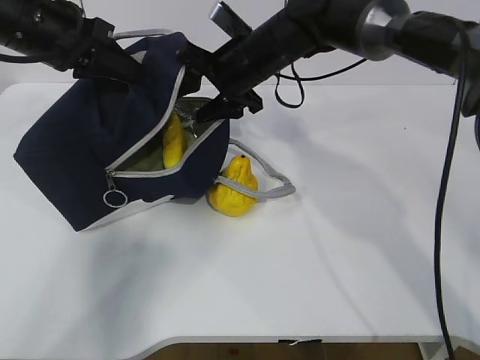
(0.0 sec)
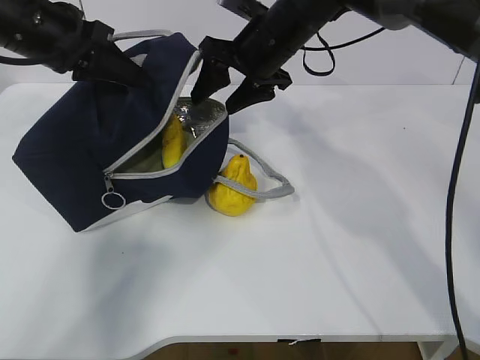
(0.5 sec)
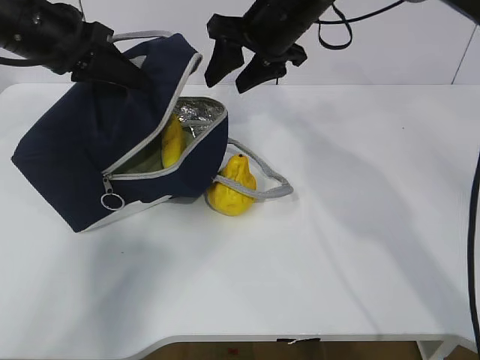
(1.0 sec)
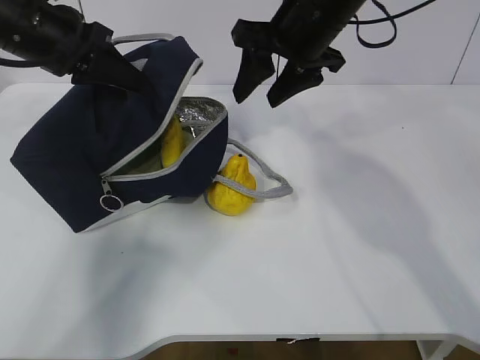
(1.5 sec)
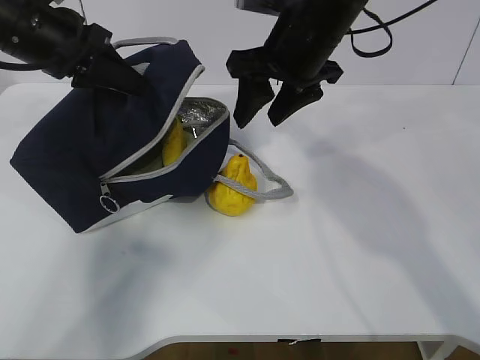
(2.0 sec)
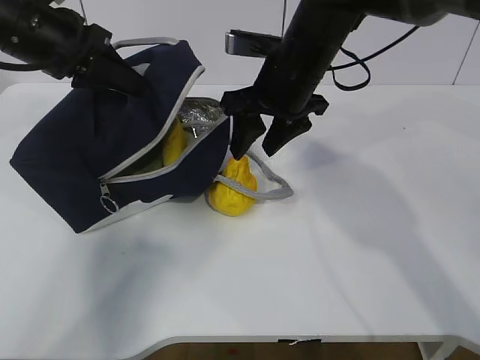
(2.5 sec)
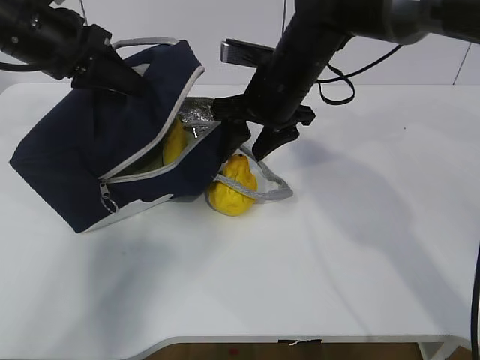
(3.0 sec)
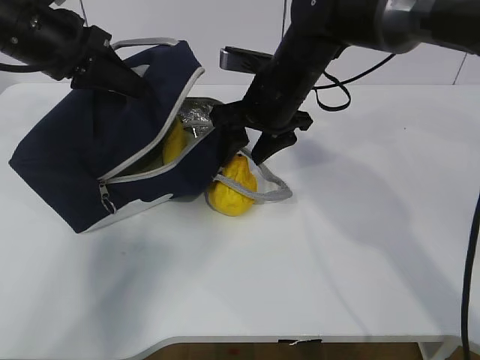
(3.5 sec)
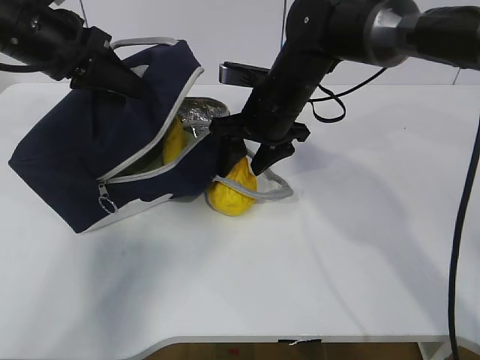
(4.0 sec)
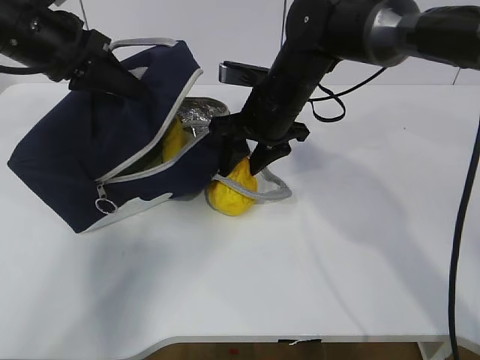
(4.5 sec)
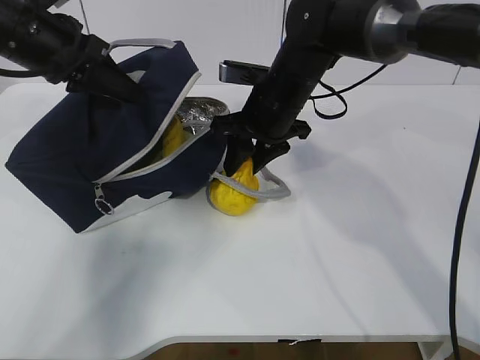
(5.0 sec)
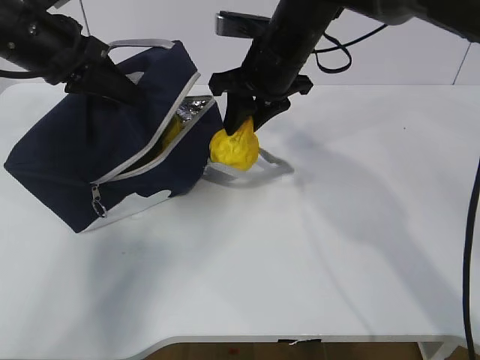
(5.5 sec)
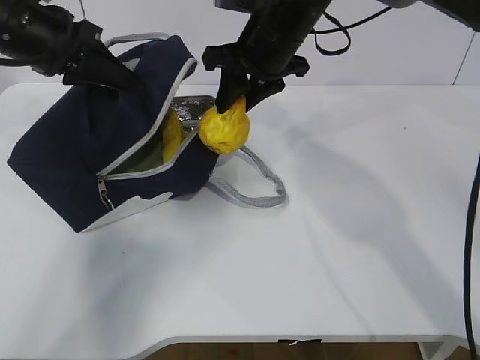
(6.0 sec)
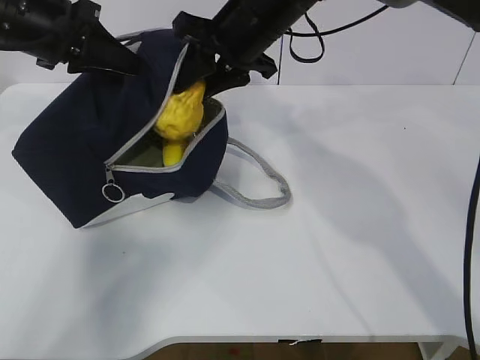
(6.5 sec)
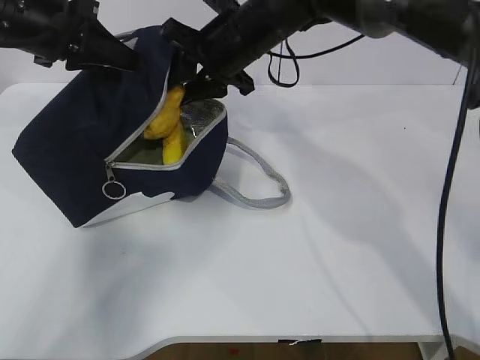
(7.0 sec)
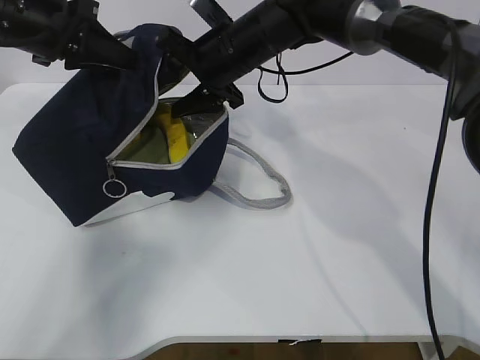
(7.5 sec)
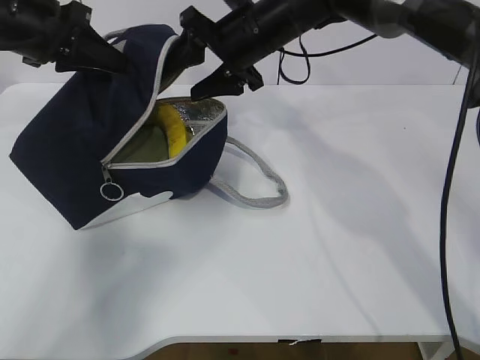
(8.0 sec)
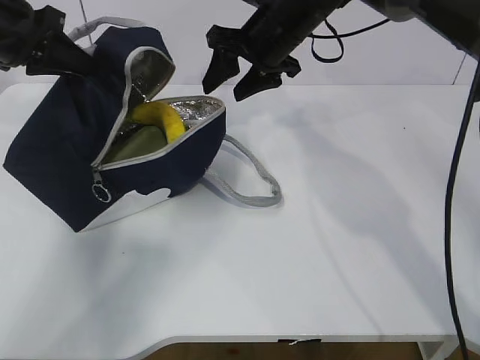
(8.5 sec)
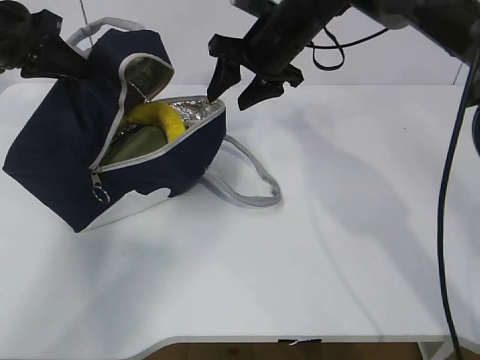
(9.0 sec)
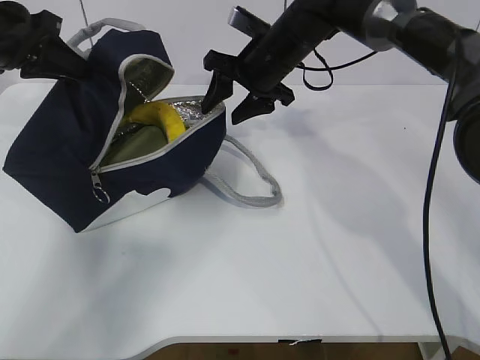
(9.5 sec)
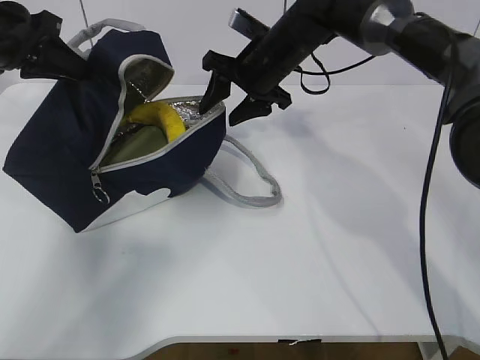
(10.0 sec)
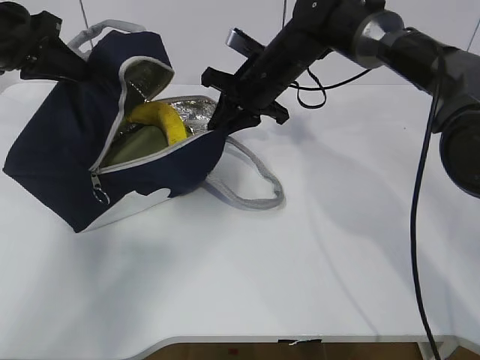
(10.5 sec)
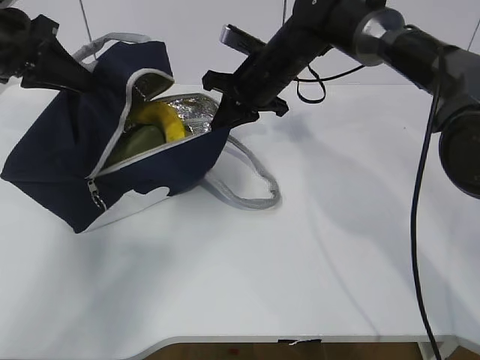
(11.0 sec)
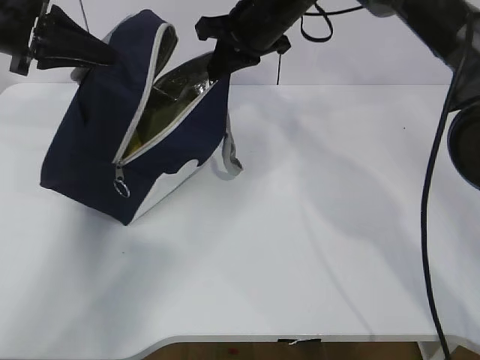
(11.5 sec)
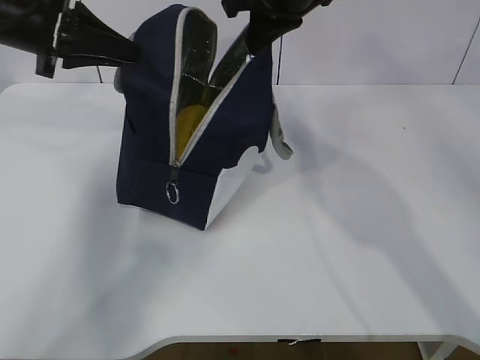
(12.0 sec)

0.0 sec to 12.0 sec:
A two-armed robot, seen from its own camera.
Step, 1.5 sec to 3.5 sec: Grab the lunch bag with your right hand.
Step, 4.0 sec to 6.5 sec: Move the lunch bag to the right.
0.0 sec to 2.0 sec: The right gripper travels backward and upward by roughly 10 cm.
2.0 sec to 4.0 sec: The right gripper is displaced downward by some 10 cm.
4.0 sec to 6.0 sec: The right gripper goes roughly 10 cm upward, and closes up.
6.0 sec to 8.0 sec: The right gripper opens its fingers.
8.0 sec to 10.0 sec: The right gripper changes place by roughly 5 cm.
10.0 sec to 12.0 sec: The left gripper shifts by approximately 5 cm. The right gripper travels upward and backward by roughly 15 cm, and closes up.

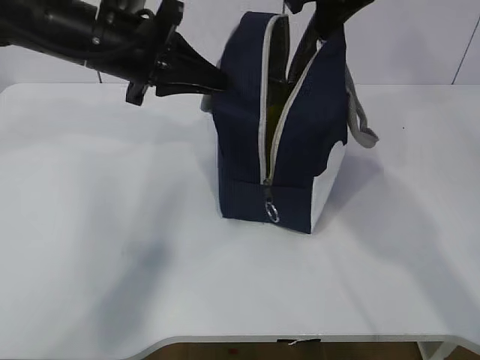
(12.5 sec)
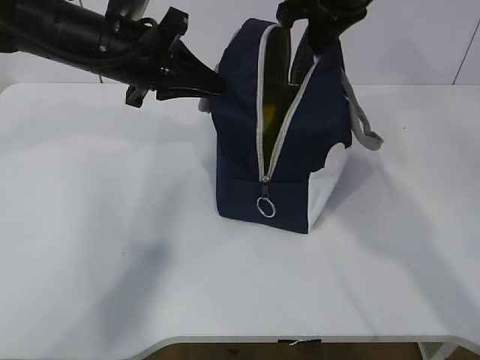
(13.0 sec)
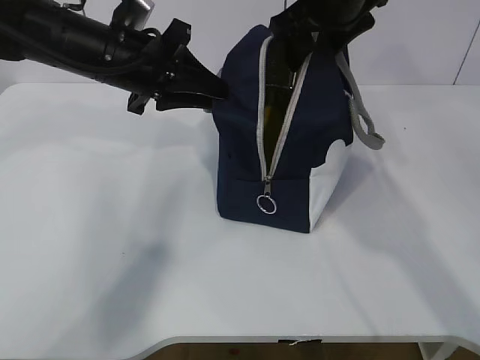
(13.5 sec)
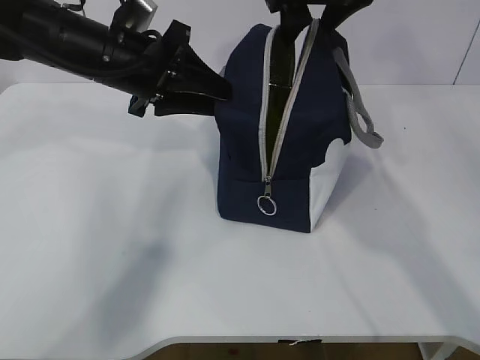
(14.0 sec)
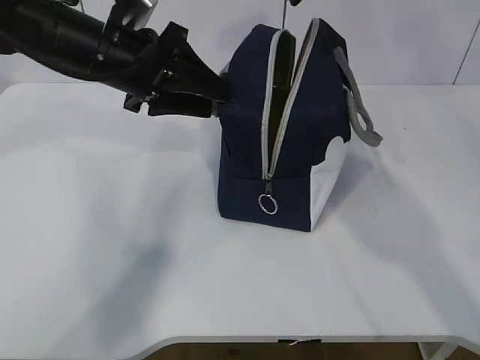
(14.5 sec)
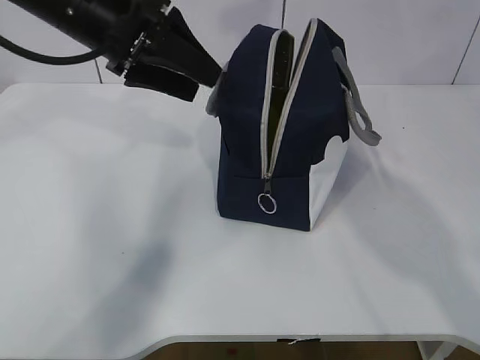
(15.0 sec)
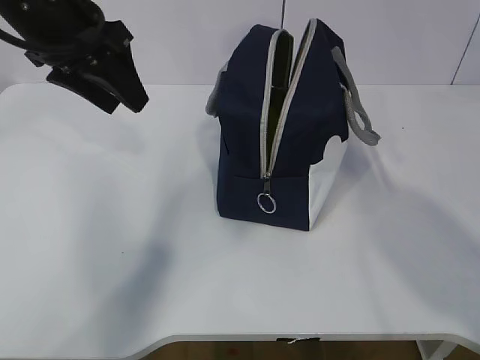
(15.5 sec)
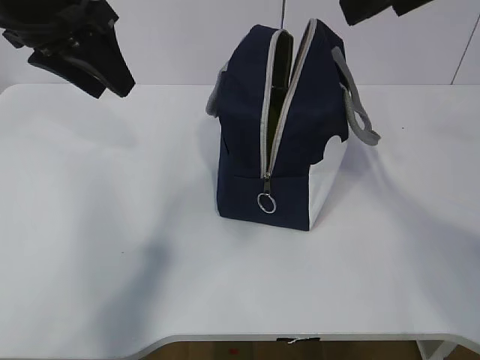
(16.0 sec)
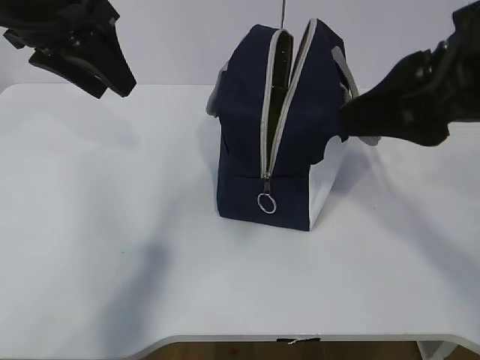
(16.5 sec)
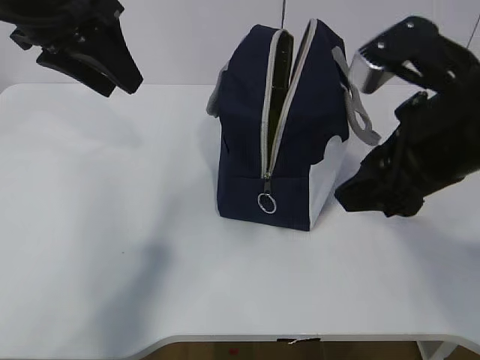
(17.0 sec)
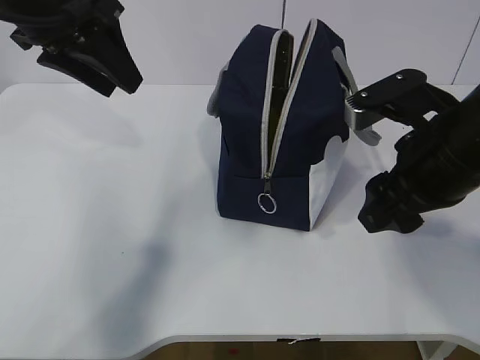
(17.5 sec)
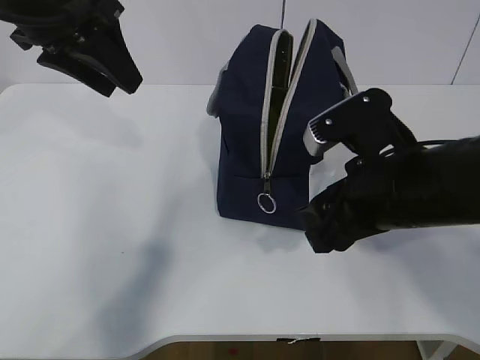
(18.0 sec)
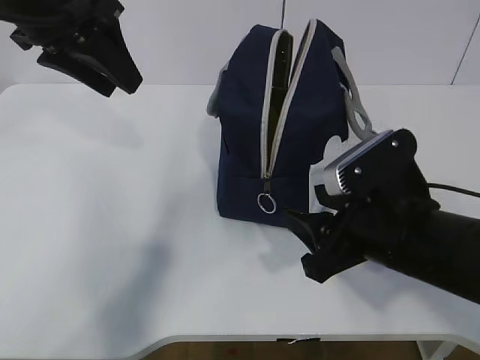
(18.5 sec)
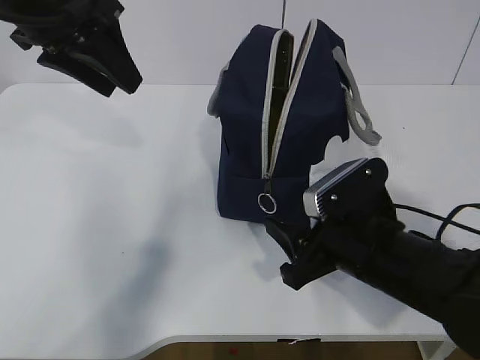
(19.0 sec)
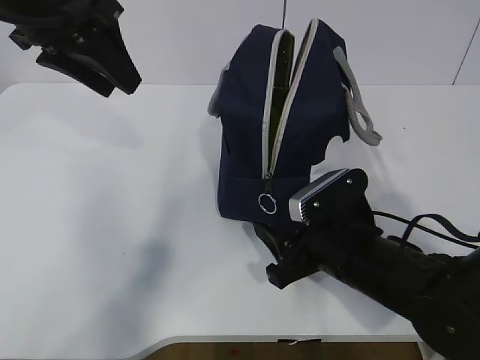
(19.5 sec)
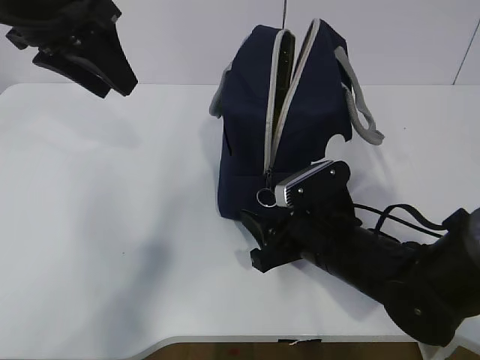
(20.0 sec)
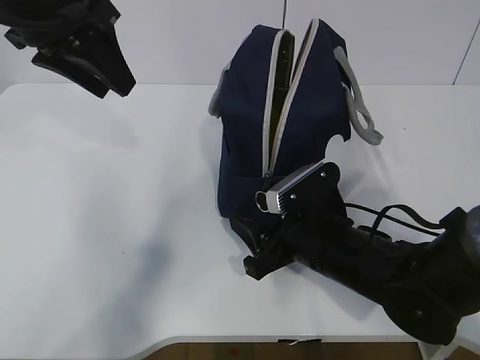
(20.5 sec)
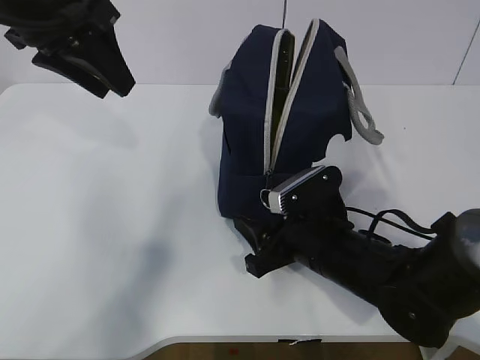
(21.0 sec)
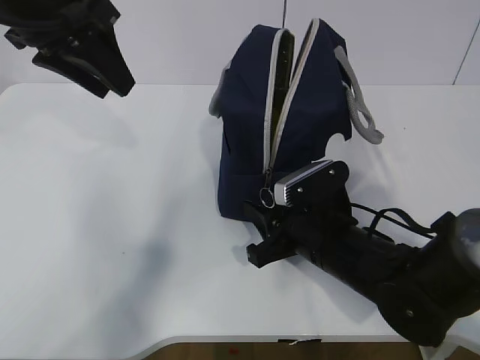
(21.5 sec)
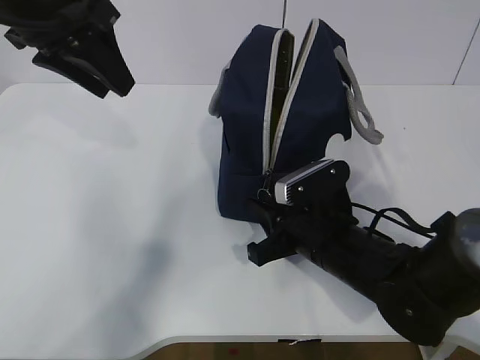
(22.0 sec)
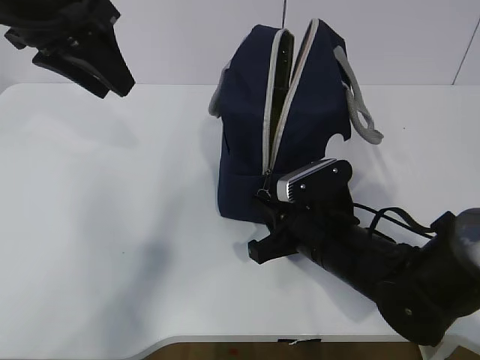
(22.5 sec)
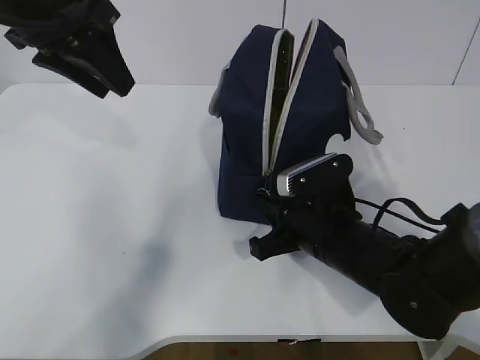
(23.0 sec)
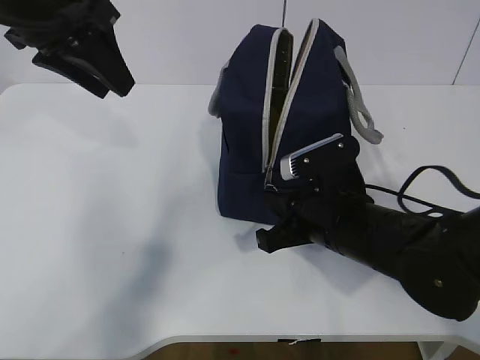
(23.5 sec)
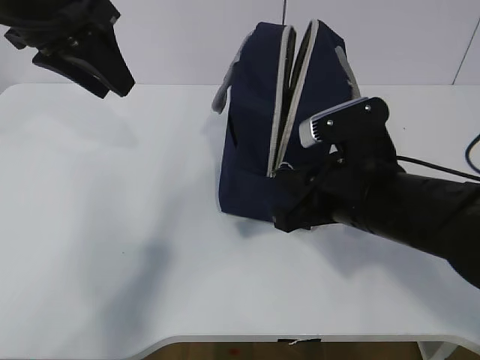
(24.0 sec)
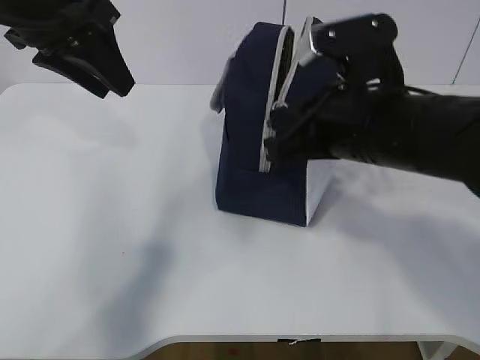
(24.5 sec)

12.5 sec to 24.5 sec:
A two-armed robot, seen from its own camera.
Step, 12.5 sec to 18.0 sec: Grab the lunch bag with your left hand.
Step, 18.5 sec to 22.0 sec: Pull the zipper with your right hand.
12.5 sec to 14.5 sec: The right gripper opens up; the left gripper opens its fingers.
14.5 sec to 16.5 sec: The left gripper travels upward by about 10 cm. Meanwhile the right gripper goes roughly 20 cm backward.
16.5 sec to 18.5 sec: The right gripper goes roughly 20 cm downward.
18.5 sec to 20.5 sec: The right gripper goes approximately 10 cm downward and forward.
20.5 sec to 22.5 sec: The right gripper closes its fingers.
22.5 sec to 24.5 sec: The right gripper heads upward, covering some 15 cm.

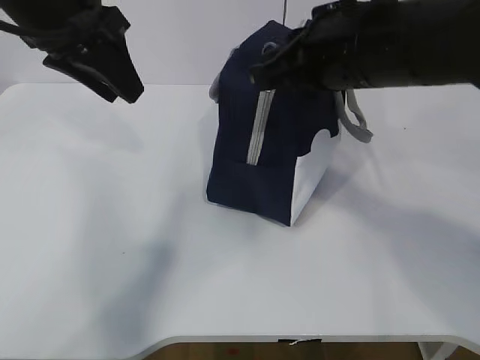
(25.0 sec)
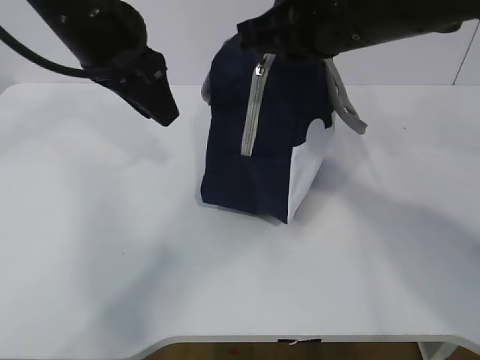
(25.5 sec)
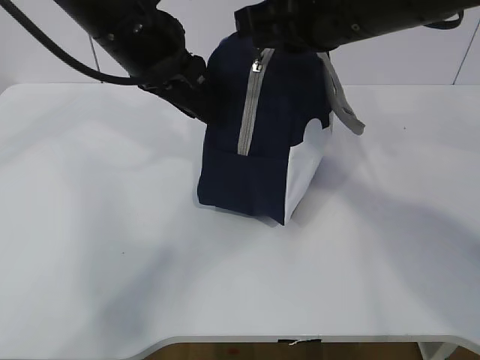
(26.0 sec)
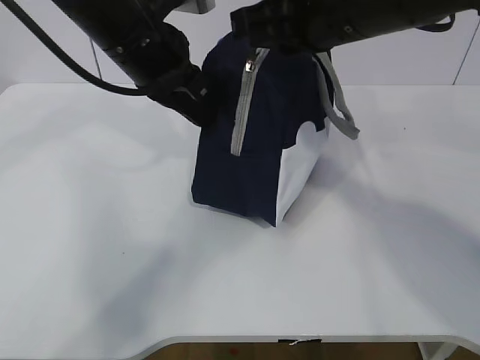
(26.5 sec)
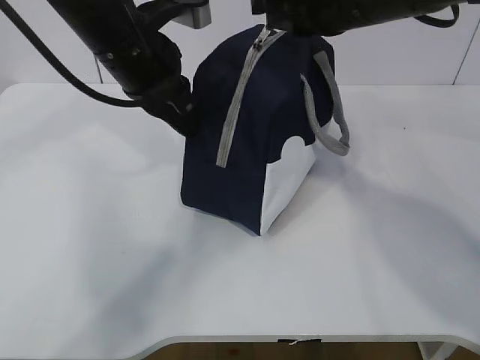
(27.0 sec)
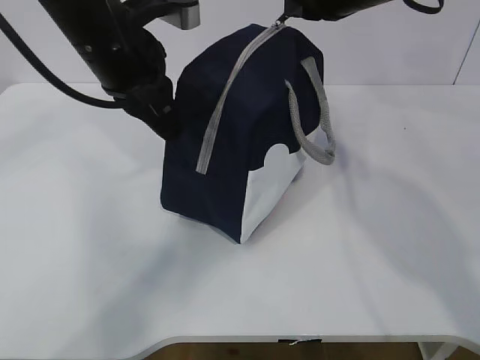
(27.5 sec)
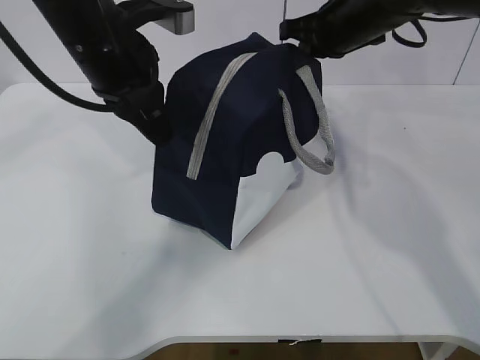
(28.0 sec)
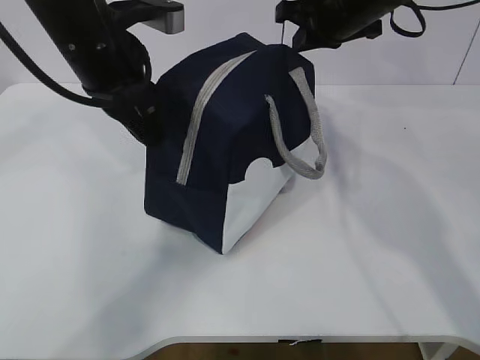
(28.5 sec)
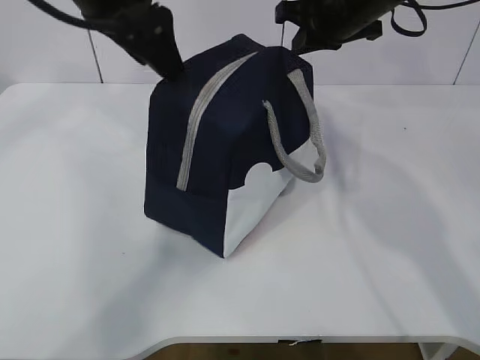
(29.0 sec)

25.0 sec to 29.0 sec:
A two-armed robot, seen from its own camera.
25.0 sec to 27.0 sec: The left gripper moves to the right and downward, approximately 10 cm, and closes up, while the right gripper moves about 5 cm.
27.0 sec to 29.0 sec: The left gripper goes about 5 cm upward, and opens up. Meanwhile the right gripper moves forward, about 10 cm.
